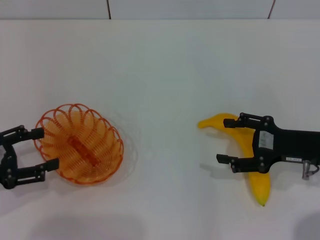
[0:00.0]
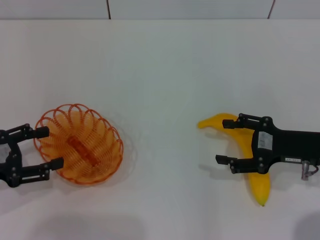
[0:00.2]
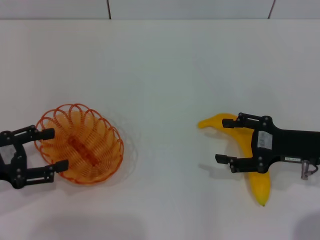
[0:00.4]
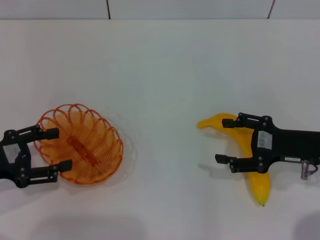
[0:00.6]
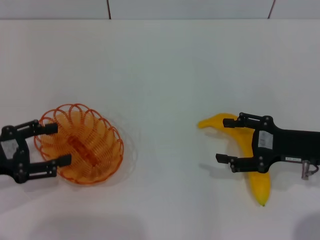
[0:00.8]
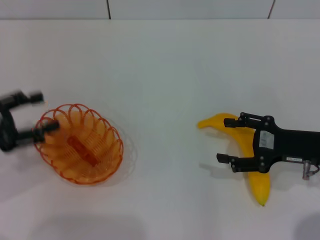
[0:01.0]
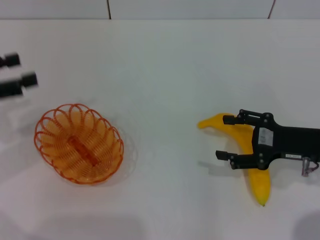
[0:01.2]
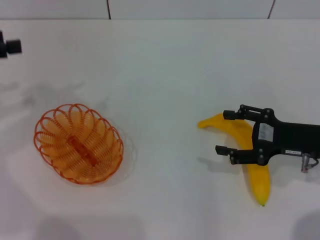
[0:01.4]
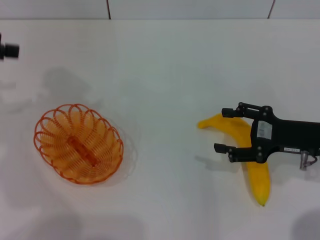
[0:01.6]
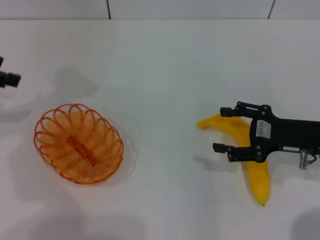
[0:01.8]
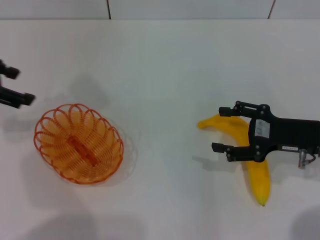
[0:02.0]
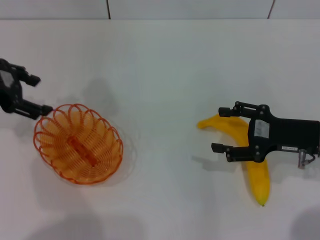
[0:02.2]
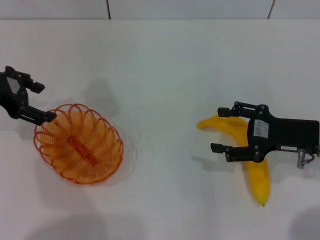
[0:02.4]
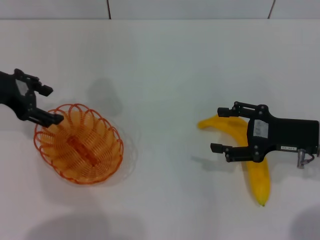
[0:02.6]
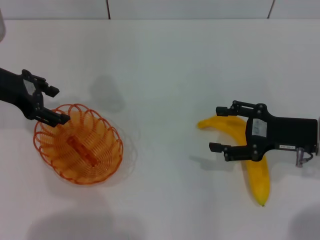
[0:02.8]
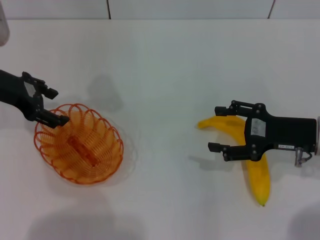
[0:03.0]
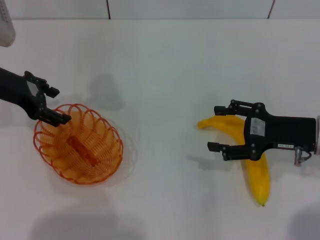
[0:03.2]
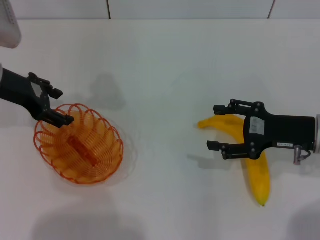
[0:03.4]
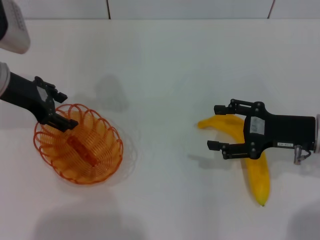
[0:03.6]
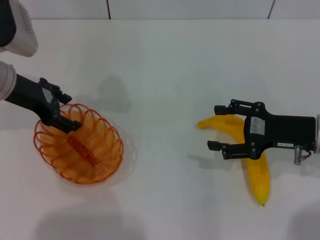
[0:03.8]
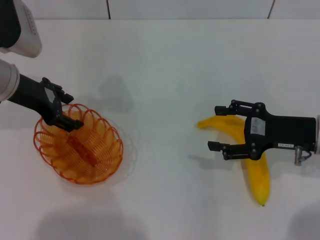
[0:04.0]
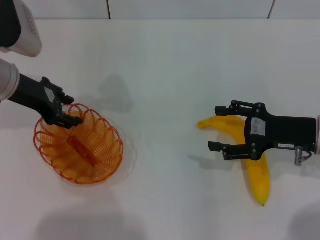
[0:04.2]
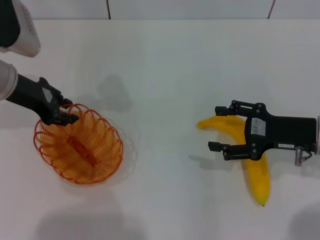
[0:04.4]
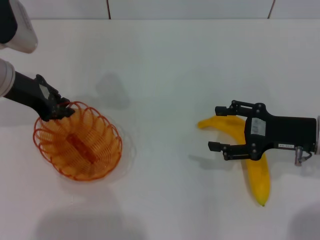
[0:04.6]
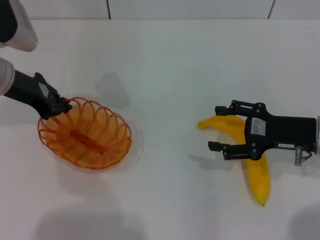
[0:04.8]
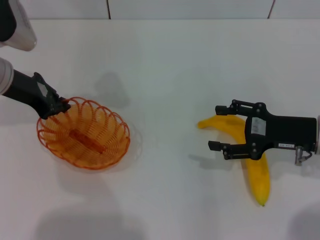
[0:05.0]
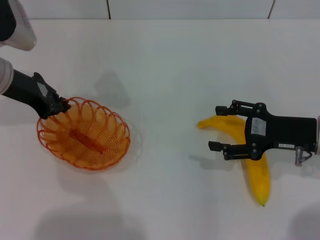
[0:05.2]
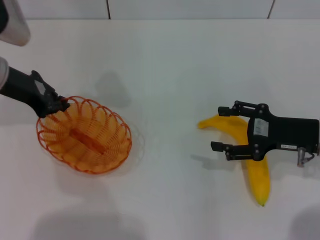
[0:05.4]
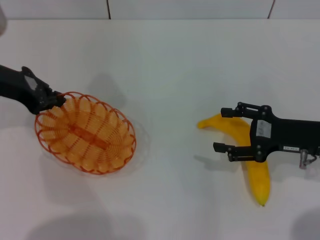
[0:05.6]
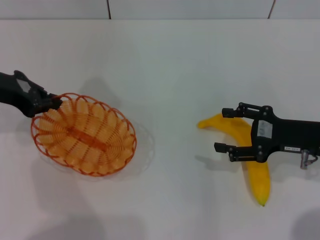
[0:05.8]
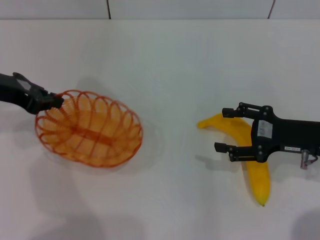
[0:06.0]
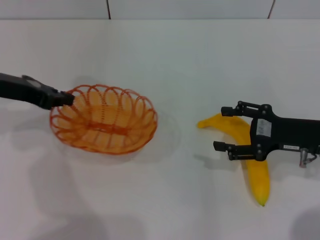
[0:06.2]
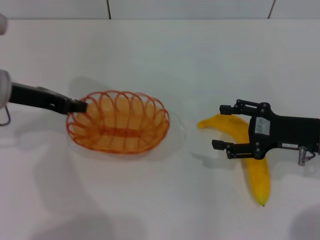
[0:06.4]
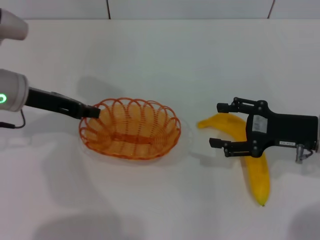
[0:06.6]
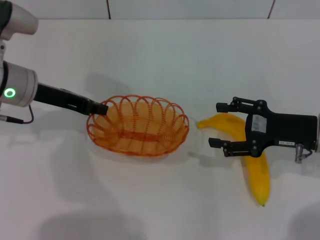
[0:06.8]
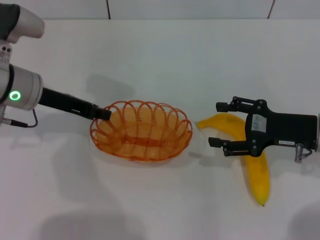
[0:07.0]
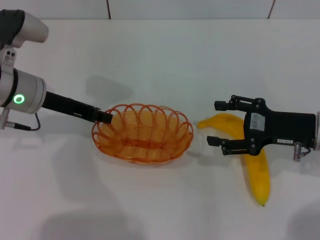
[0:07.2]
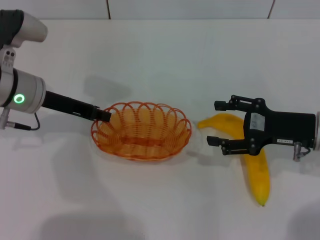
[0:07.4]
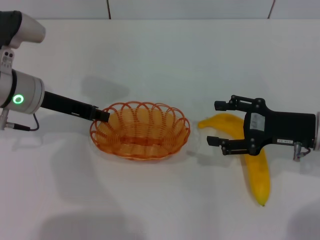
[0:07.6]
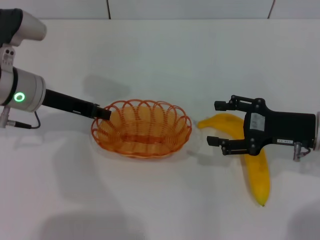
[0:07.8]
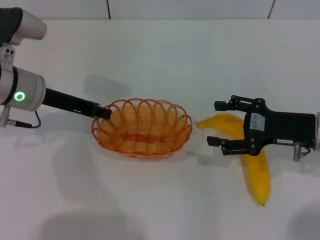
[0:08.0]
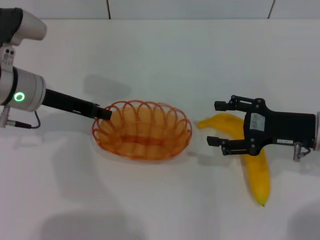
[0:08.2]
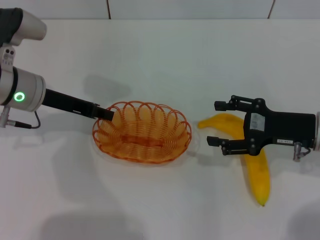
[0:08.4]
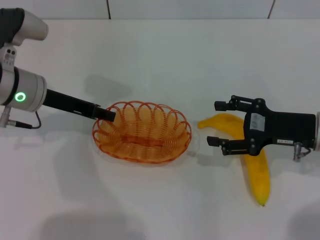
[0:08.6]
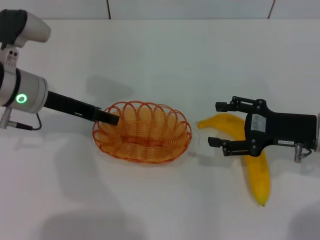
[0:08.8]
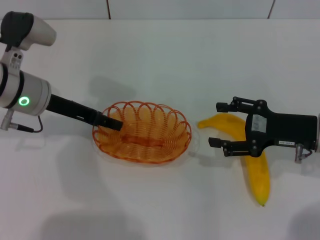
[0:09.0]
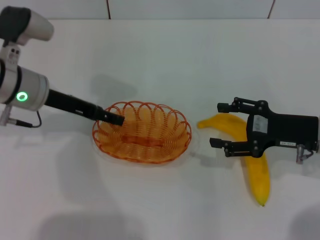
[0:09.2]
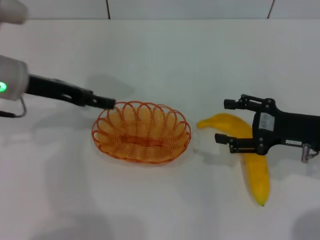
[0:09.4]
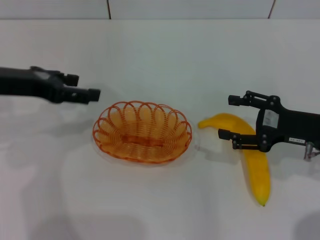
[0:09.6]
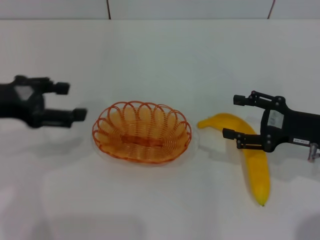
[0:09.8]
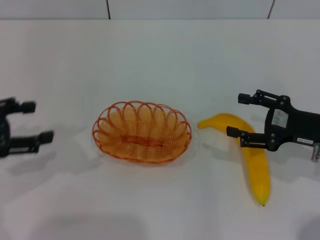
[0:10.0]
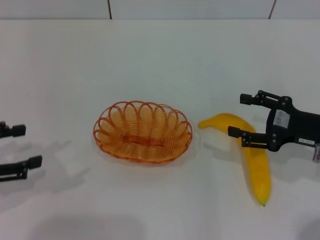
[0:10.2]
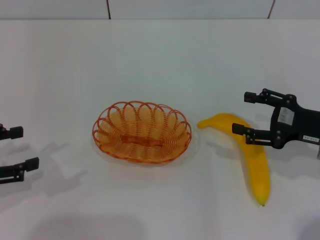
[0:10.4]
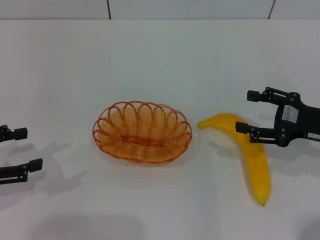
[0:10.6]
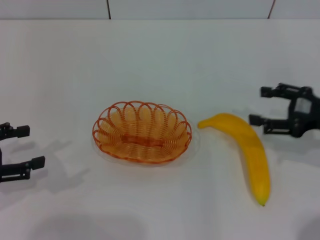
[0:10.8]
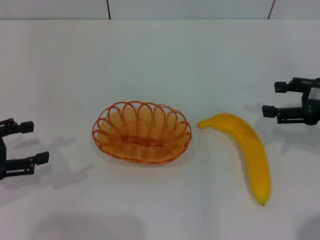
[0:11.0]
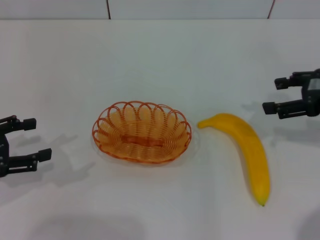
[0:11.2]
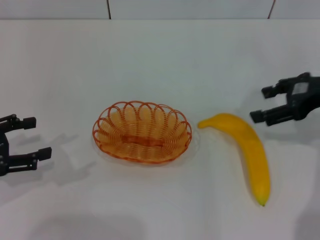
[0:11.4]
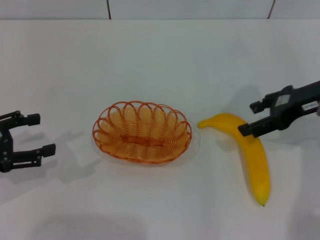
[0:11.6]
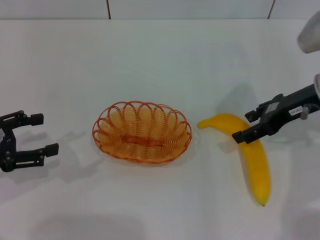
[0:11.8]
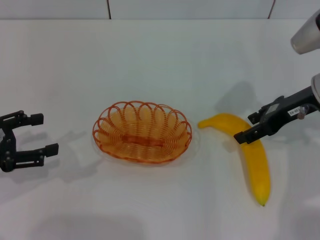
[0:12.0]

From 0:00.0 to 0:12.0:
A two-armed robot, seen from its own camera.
Step, from 0:00.0 to 0:05.6: Pick up the basket with the left gripper.
Step, from 0:05.8 to 0:10.0: Place the basket in the center of view with the left gripper.
From 0:00.0 to 0:01.6: The left gripper travels upward and forward by about 20 cm.
From 0:01.6 to 0:03.0: The left gripper moves to the right and downward, approximately 10 cm.
From 0:03.0 to 0:04.4: The grippers make only small movements.
From 0:04.4 to 0:06.0: The left gripper moves roughly 5 cm, and closes up.
From 0:06.0 to 0:07.6: The left gripper moves to the right and downward, about 10 cm.
From 0:07.6 to 0:09.0: The left gripper opens its fingers.
From 0:09.0 to 0:10.4: The left gripper goes some 20 cm to the left and backward, and opens.
From 0:10.4 to 0:12.0: The right gripper goes about 10 cm forward and upward.

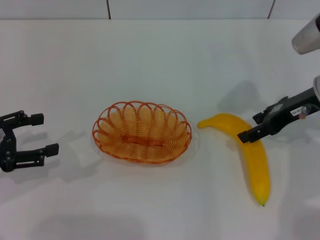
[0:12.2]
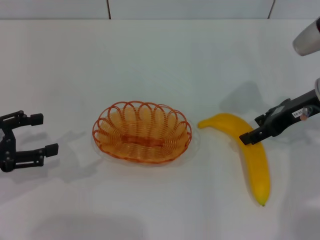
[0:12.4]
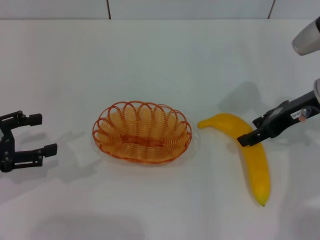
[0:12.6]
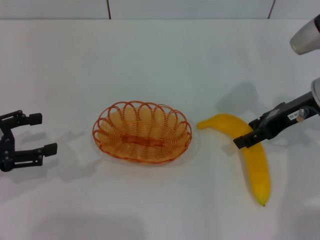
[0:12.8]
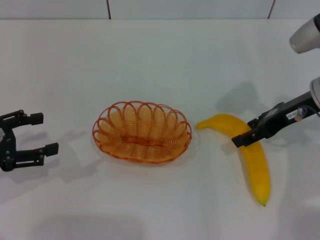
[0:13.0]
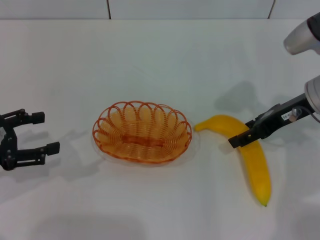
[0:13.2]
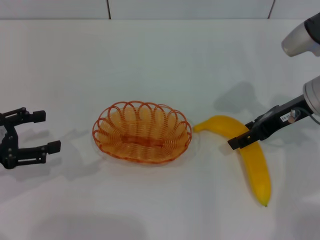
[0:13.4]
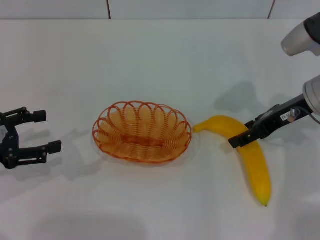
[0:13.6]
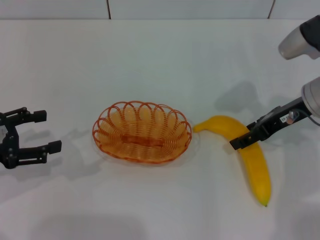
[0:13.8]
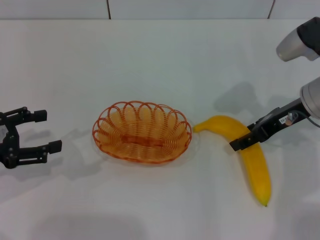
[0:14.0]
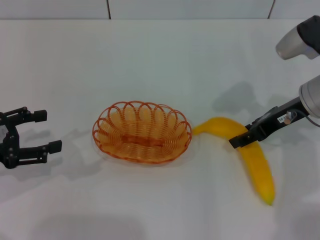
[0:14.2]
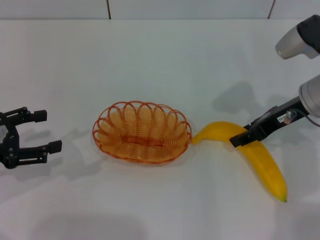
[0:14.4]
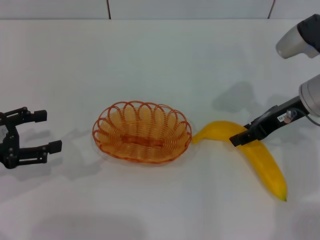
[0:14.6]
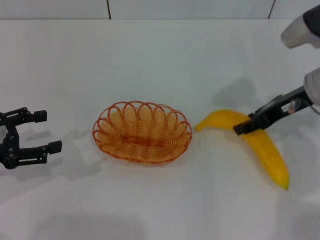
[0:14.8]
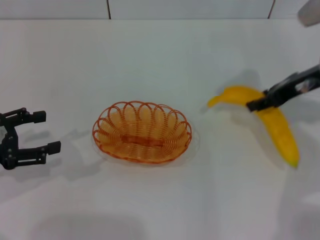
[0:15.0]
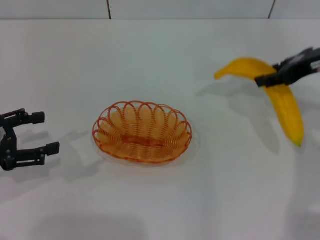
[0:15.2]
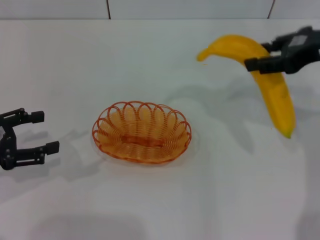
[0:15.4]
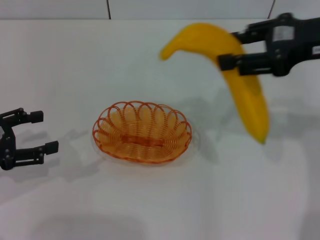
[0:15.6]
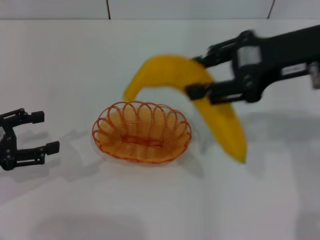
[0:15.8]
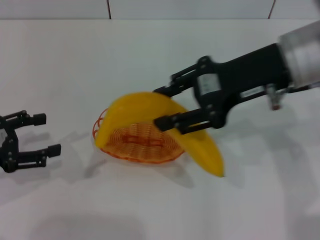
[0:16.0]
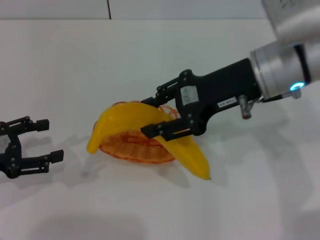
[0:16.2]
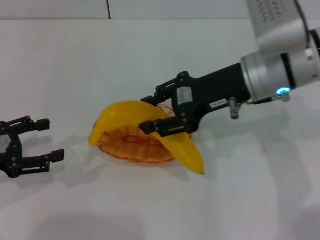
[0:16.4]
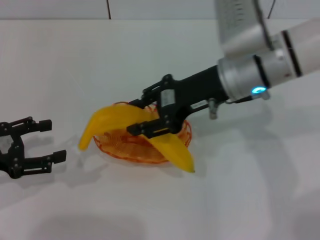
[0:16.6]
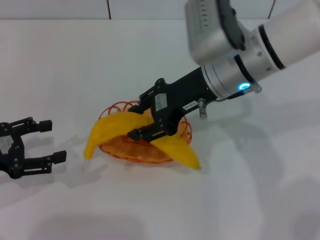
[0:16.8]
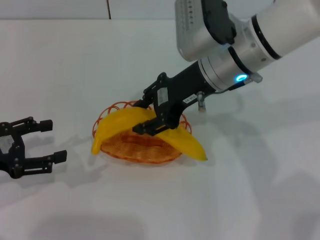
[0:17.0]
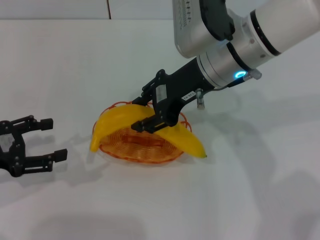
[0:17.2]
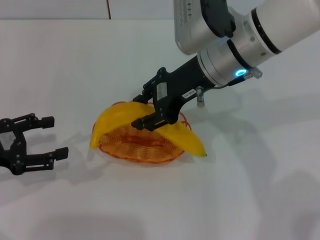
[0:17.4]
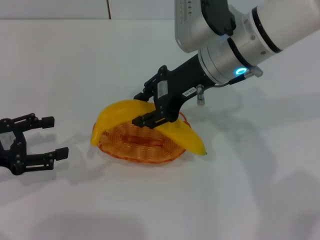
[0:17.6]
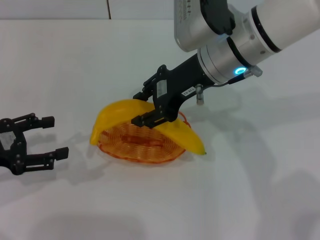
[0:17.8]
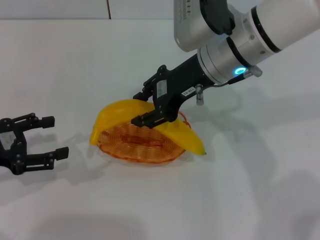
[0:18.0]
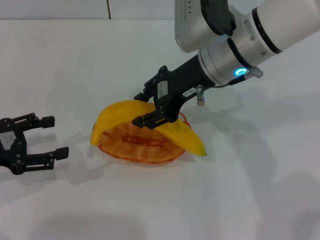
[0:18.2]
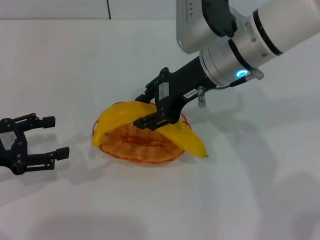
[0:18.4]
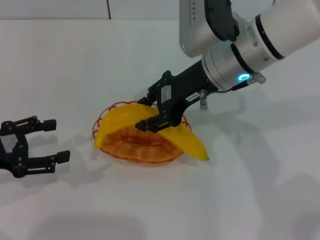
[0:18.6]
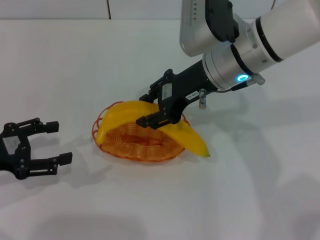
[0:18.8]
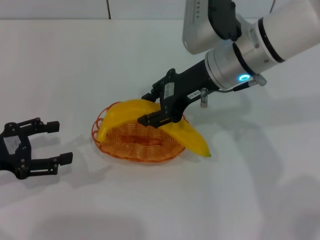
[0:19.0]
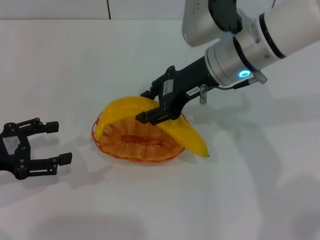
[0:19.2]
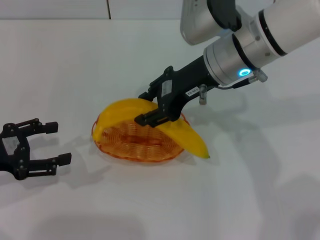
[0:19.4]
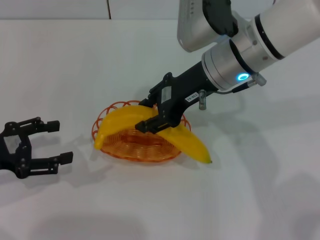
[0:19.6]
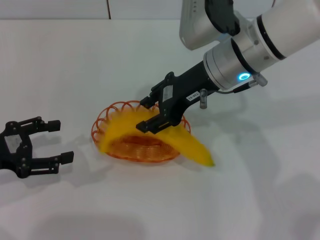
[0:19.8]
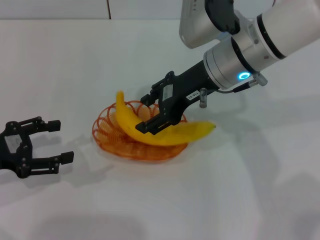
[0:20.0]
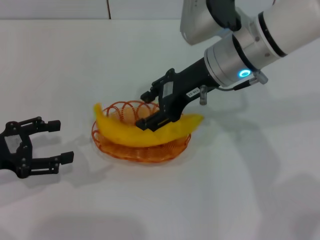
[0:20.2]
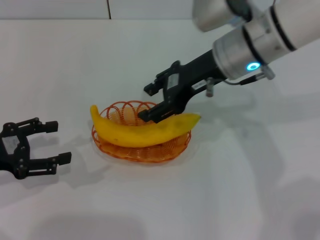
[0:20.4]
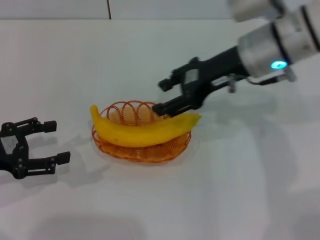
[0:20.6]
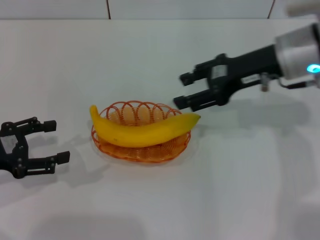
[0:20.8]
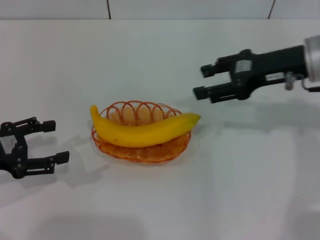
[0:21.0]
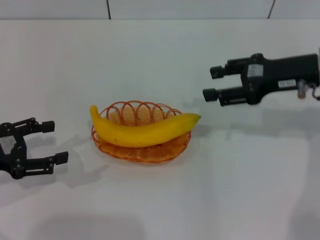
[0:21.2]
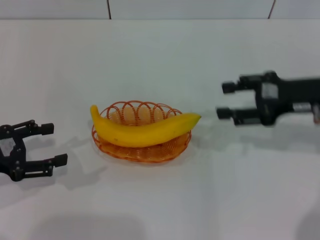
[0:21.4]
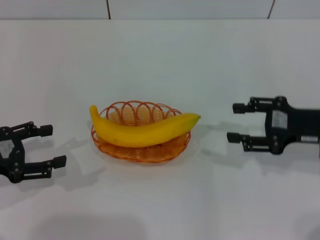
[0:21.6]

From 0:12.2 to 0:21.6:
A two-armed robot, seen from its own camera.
Step, from 0:12.2 to 0:15.0: Pick up the banana with the right gripper.
Step, from 0:15.2 to 0:20.0: Place the banana into the basket with the right gripper.
From 0:12.2 to 0:13.8: The grippers stay close to where they were, moving slightly.
From 0:13.8 to 0:15.4: The right gripper moves upward, roughly 10 cm, and closes its fingers.
From 0:15.4 to 0:17.0: The right gripper travels to the left by some 20 cm.
From 0:17.0 to 0:18.4: Both grippers stay about where they are.
From 0:18.4 to 0:20.0: The grippers stay close to where they were, moving slightly.
From 0:20.0 to 0:21.6: The right gripper moves to the right, backward and downward, roughly 20 cm.

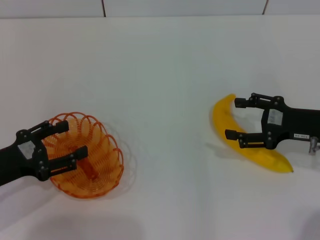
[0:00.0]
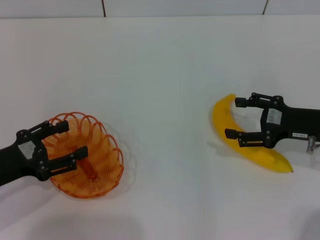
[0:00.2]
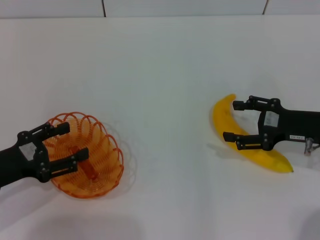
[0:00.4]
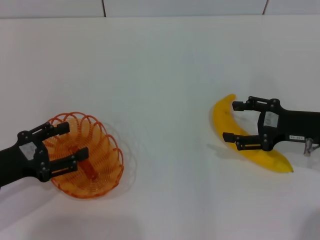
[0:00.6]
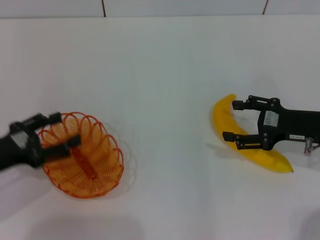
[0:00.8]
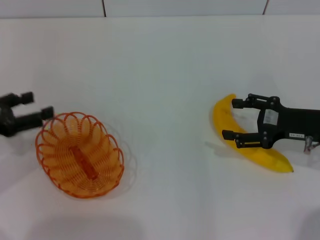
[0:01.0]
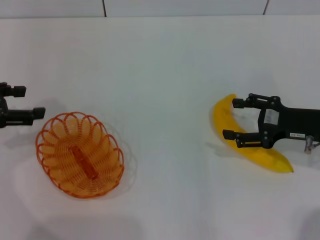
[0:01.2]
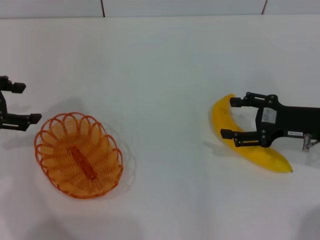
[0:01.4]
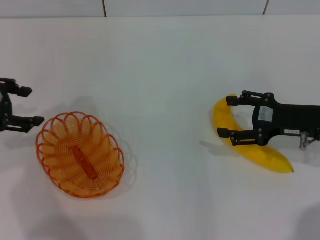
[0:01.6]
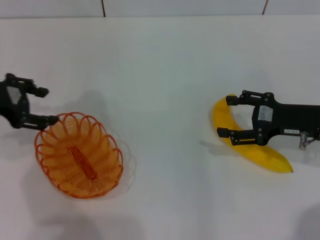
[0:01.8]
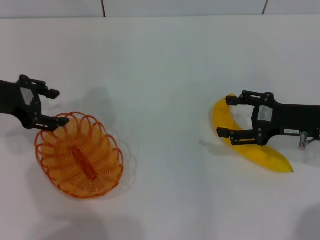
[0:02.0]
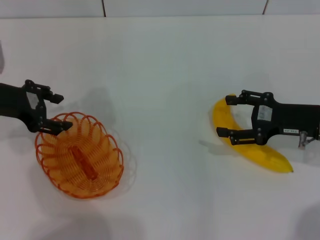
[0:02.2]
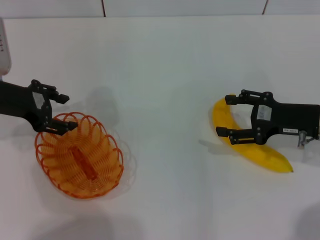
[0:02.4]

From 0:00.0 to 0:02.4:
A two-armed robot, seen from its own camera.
From 0:00.0 to 0:01.2: The left gripper goes some 10 cm upward and forward.
From 0:01.2 to 0:02.4: The left gripper is displaced to the right by about 5 cm.
